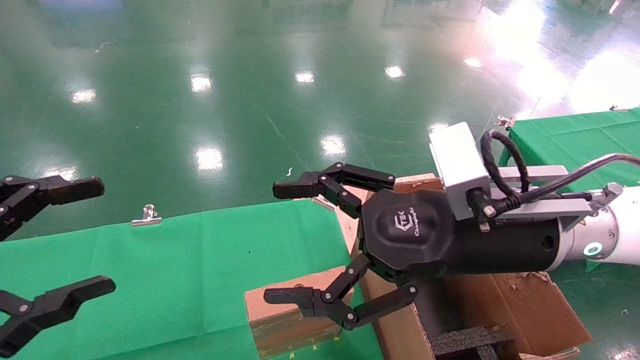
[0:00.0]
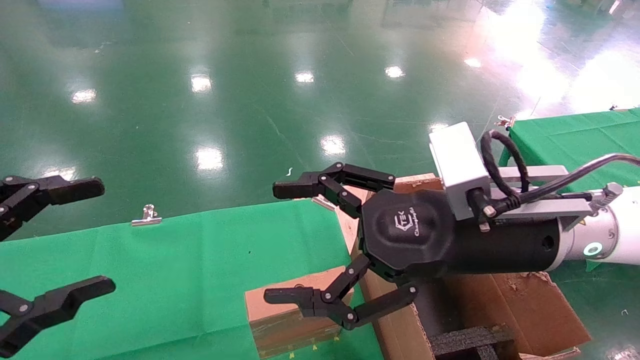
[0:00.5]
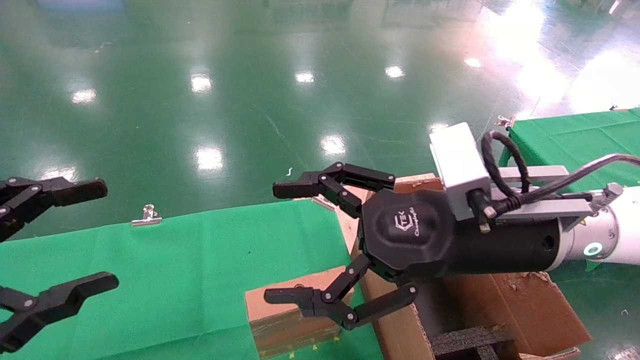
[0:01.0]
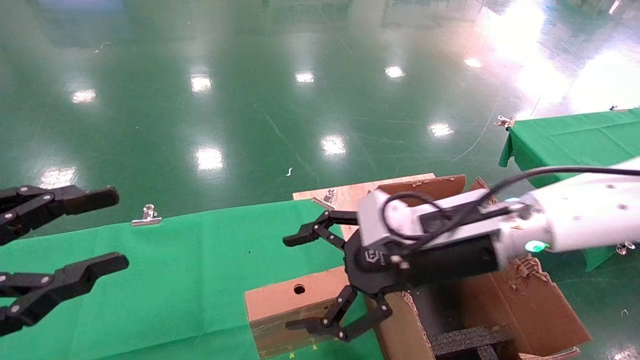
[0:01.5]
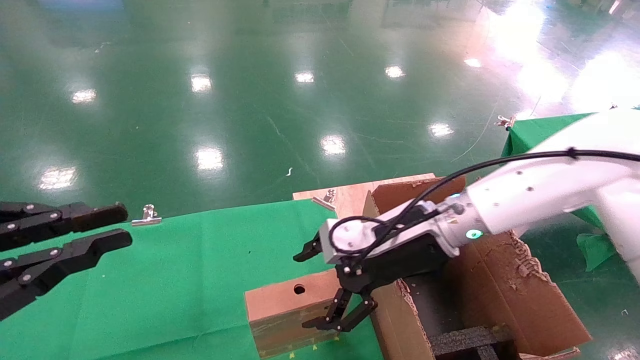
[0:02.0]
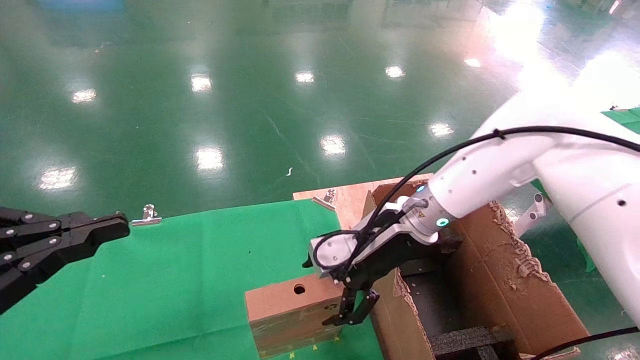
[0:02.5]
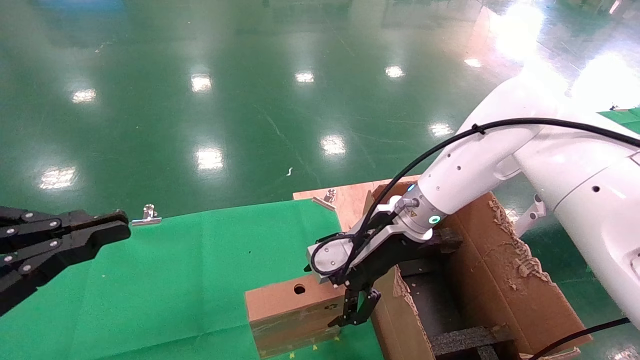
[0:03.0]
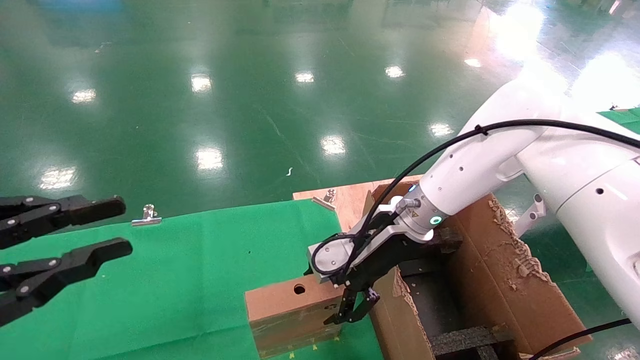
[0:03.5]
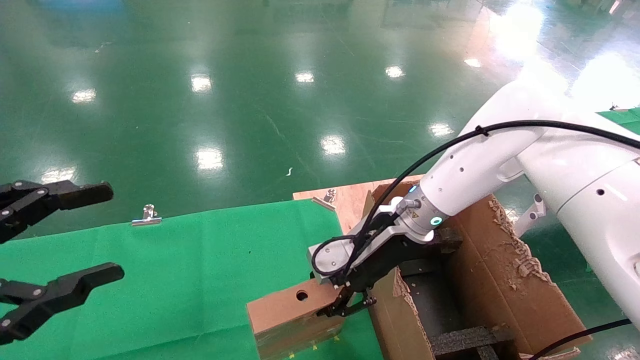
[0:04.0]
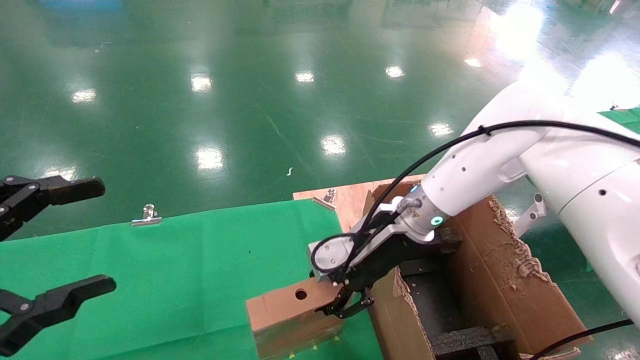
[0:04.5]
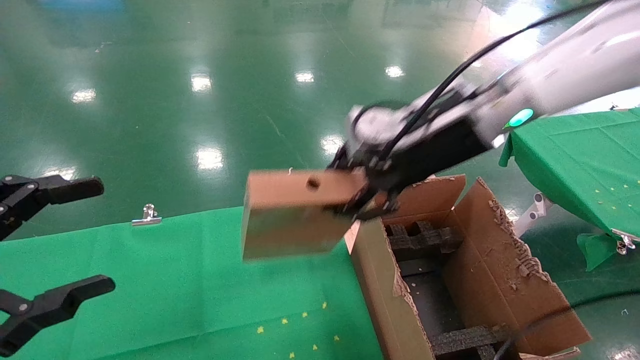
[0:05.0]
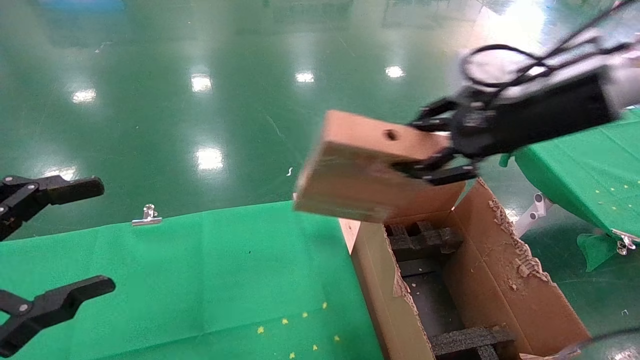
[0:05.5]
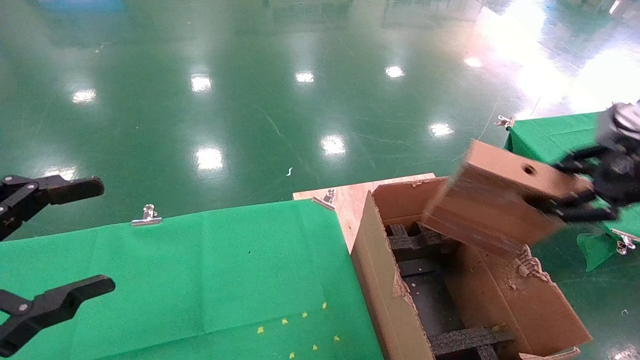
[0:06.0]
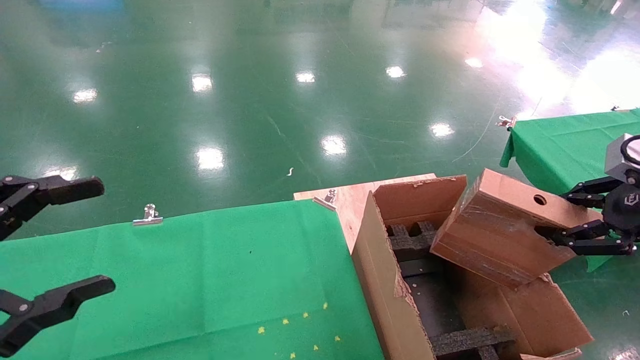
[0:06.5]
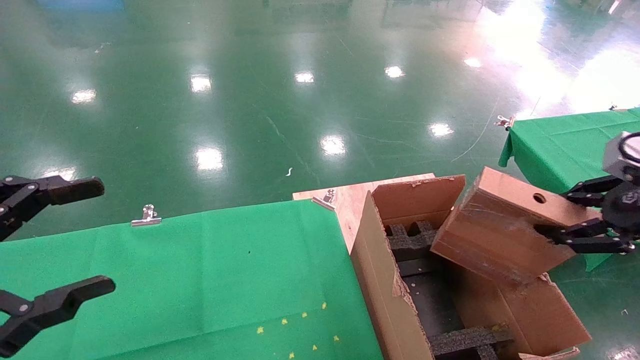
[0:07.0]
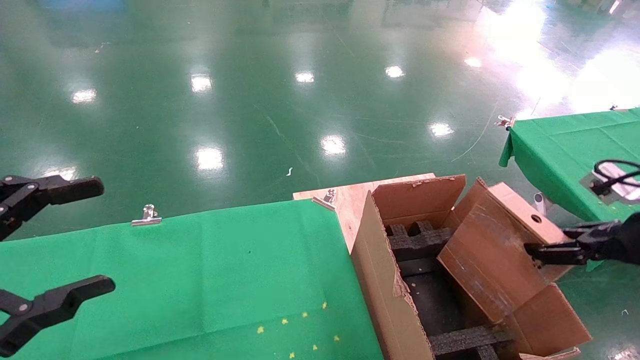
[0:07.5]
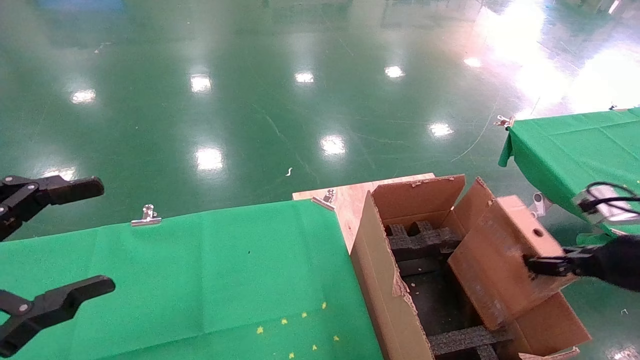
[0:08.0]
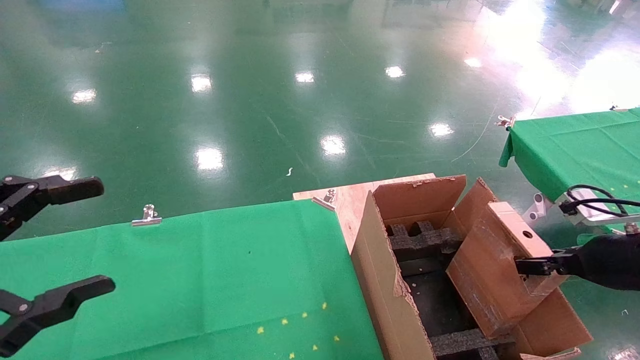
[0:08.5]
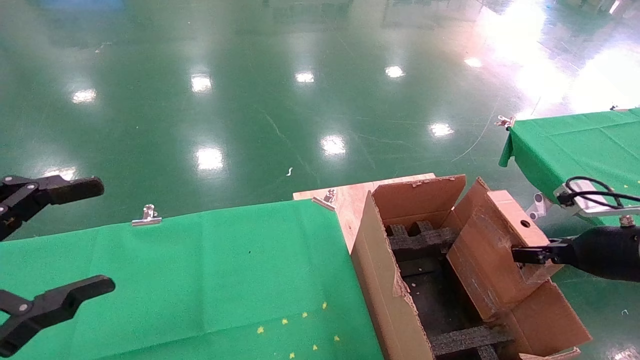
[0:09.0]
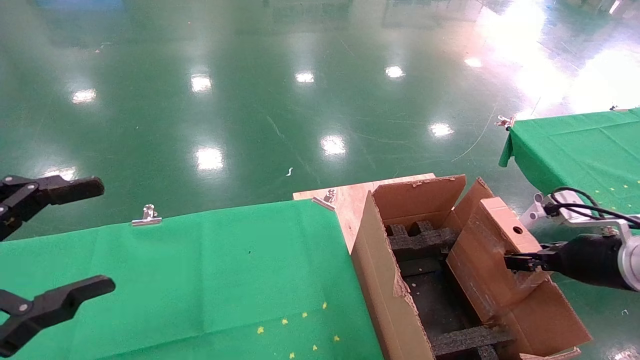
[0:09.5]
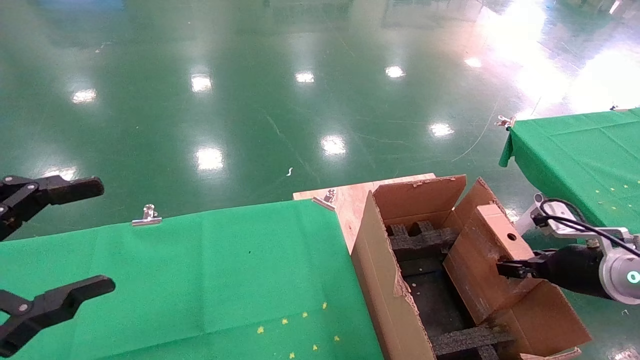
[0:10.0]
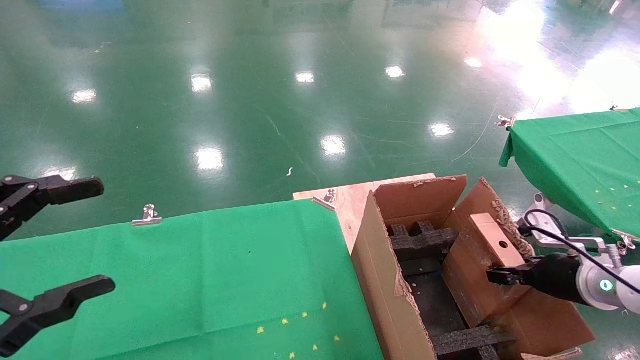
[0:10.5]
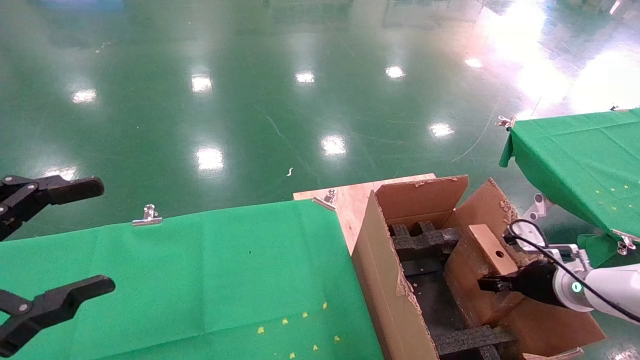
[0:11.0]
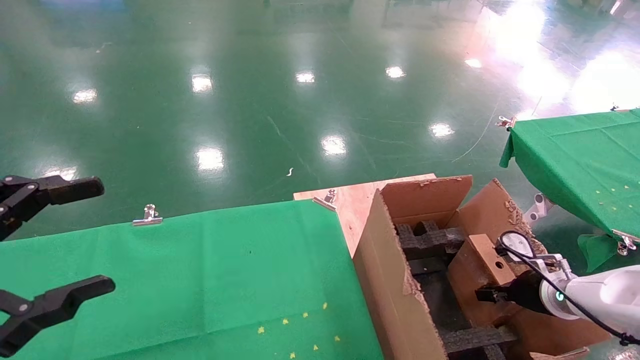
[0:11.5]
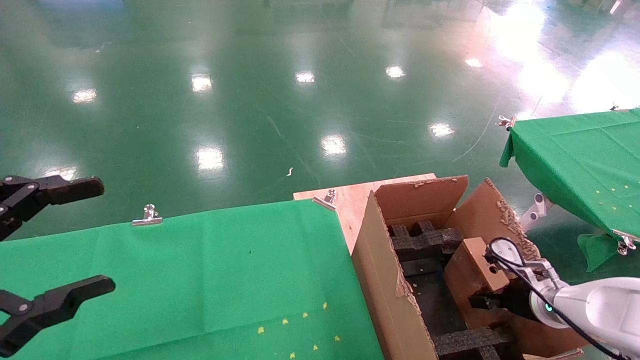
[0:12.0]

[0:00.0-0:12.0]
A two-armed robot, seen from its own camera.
Task of the whole recording: using a robotic arm to pick up a cardboard box and palace it the carton.
Step, 0:01.5 to 0:04.0: Pick up the mouse and the power cord paper box.
0:00.0 to 0:02.0: The left gripper closes. The right gripper travels forward and downward by about 10 cm.
0:02.0 to 0:04.0: The right gripper closes up, while the left gripper opens its fingers.
0:04.0 to 0:06.0: The left gripper opens its fingers, while the right gripper moves to the right, backward and upward, roughly 35 cm.
0:06.0 to 0:08.0: The right gripper moves downward, approximately 15 cm.
0:08.0 to 0:10.0: The right gripper goes roughly 10 cm downward and forward.
0:10.0 to 0:12.0: The right gripper heads downward, covering approximately 10 cm.

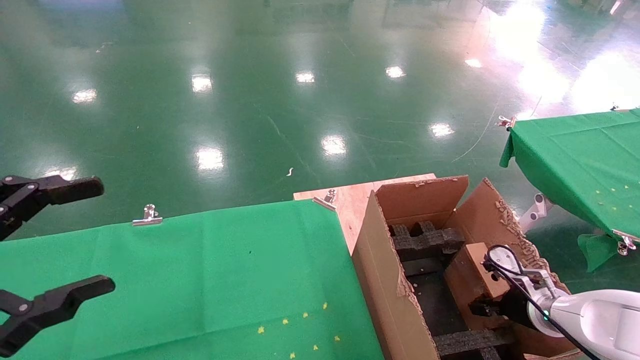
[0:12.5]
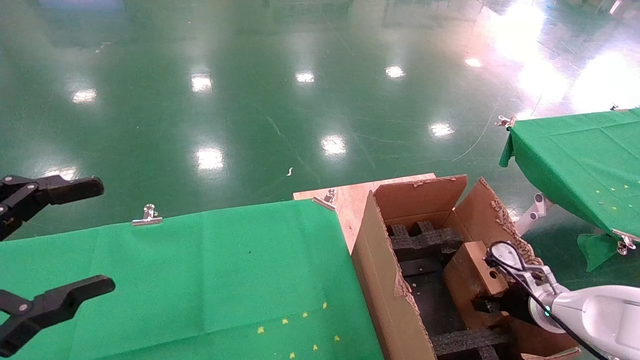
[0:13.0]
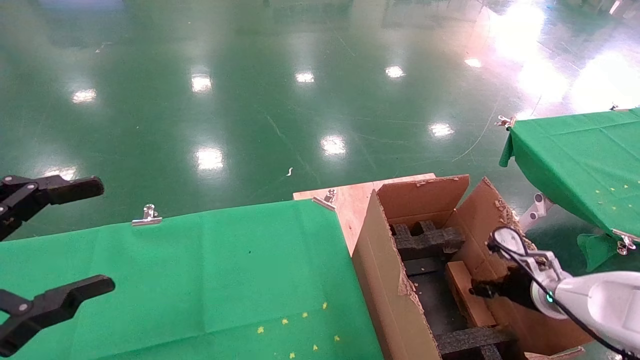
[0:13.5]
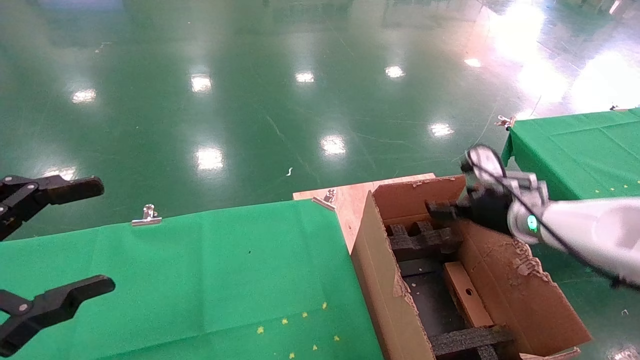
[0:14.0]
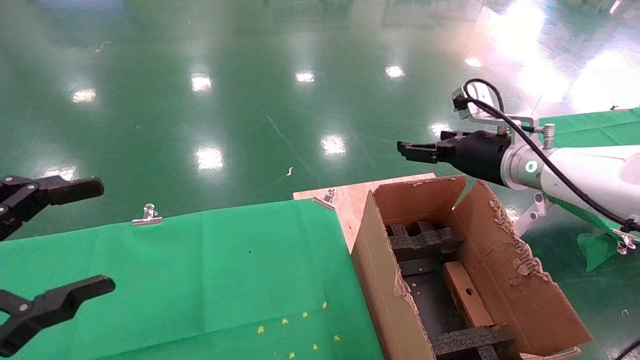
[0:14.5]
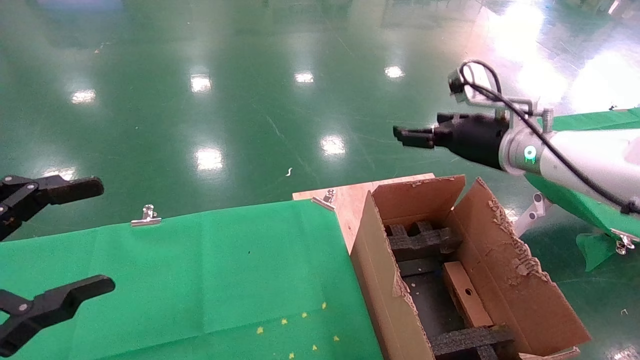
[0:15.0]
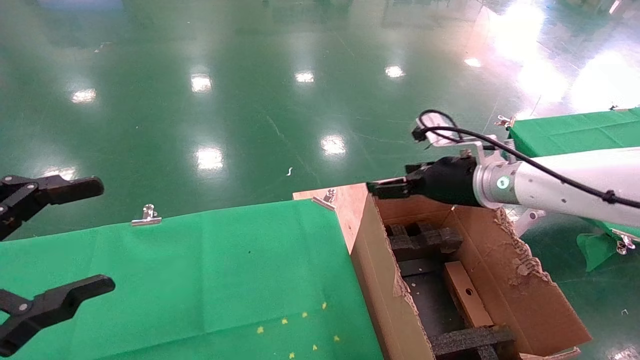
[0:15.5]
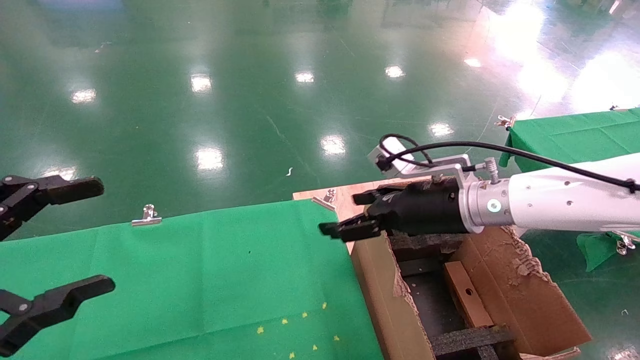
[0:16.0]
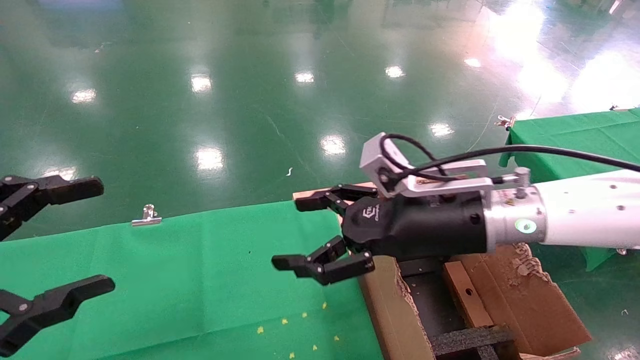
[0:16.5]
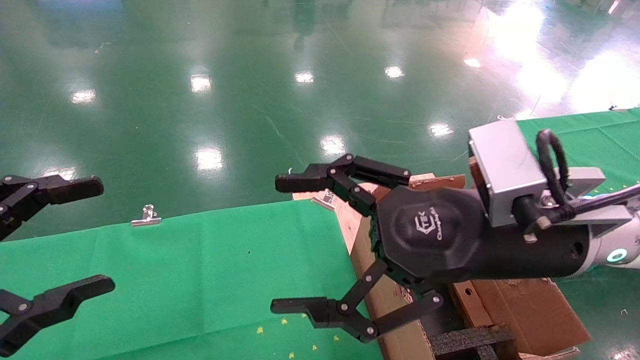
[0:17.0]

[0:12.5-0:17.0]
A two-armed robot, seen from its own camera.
Task of the whole recording: using a robotic arm to pick up a cardboard box and palace it the carton.
0:12.5 to 0:14.5: The right gripper shifts some 25 cm upward, and opens up.
0:14.5 to 0:17.0: The right gripper goes roughly 20 cm backward and to the left.

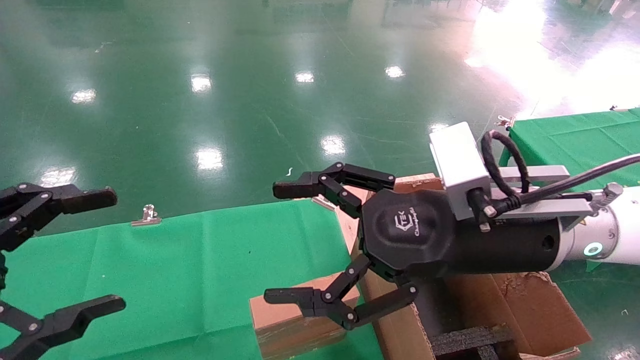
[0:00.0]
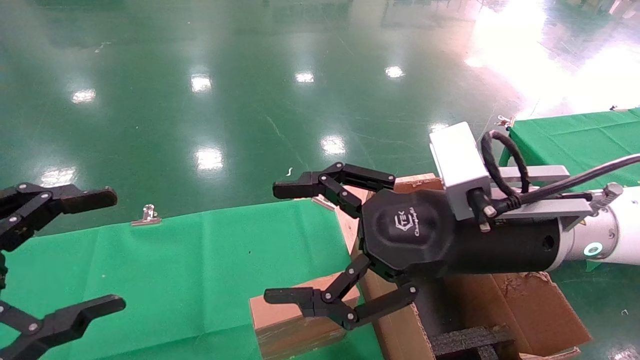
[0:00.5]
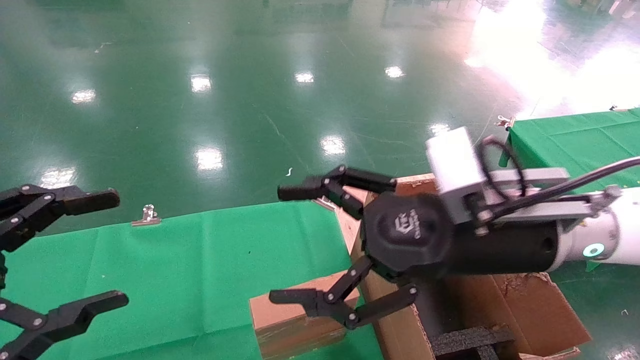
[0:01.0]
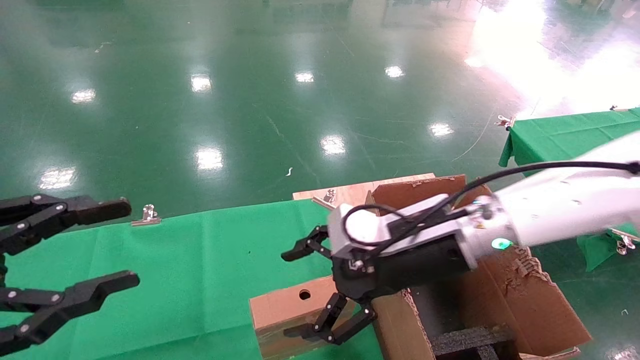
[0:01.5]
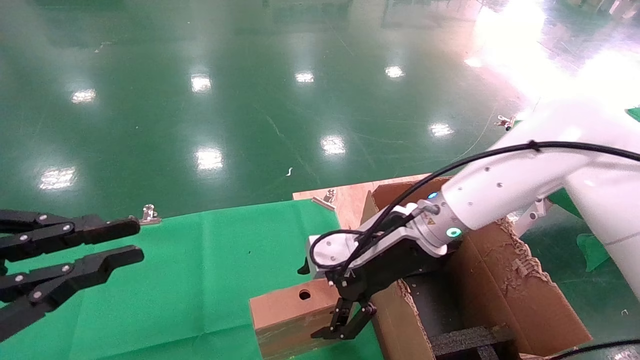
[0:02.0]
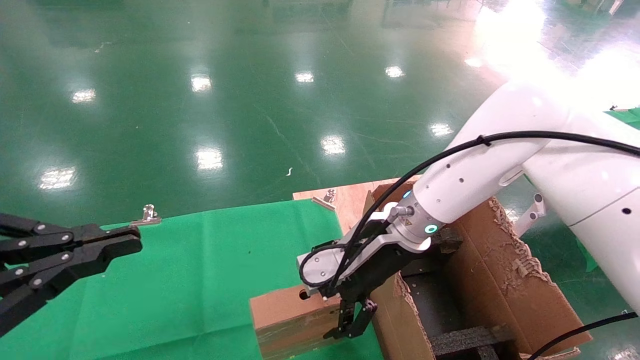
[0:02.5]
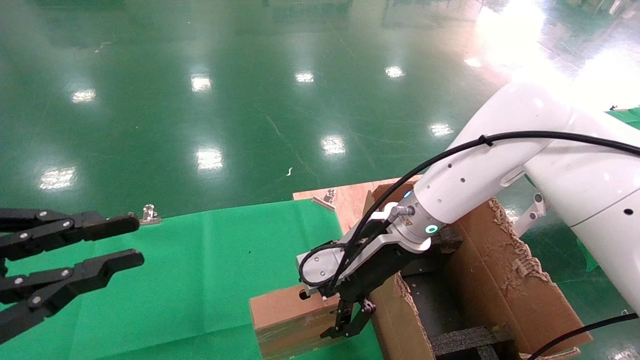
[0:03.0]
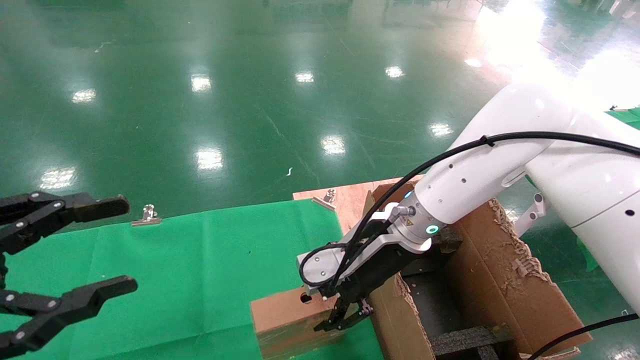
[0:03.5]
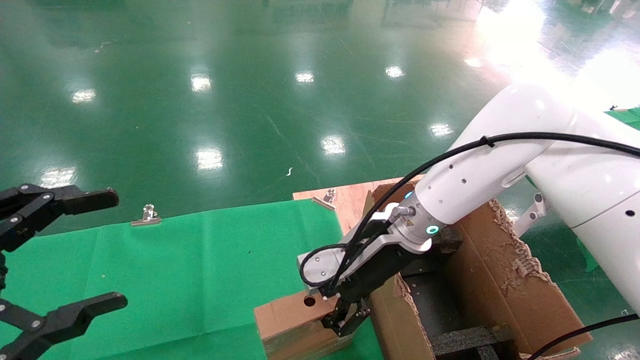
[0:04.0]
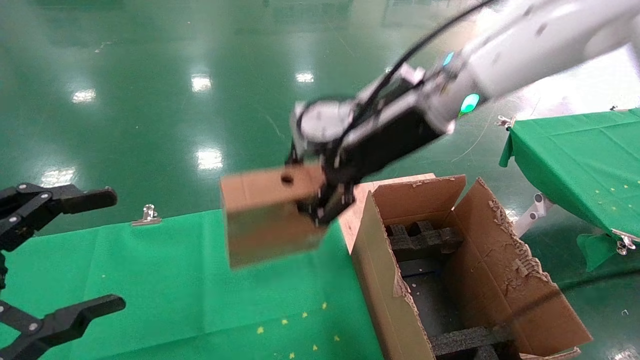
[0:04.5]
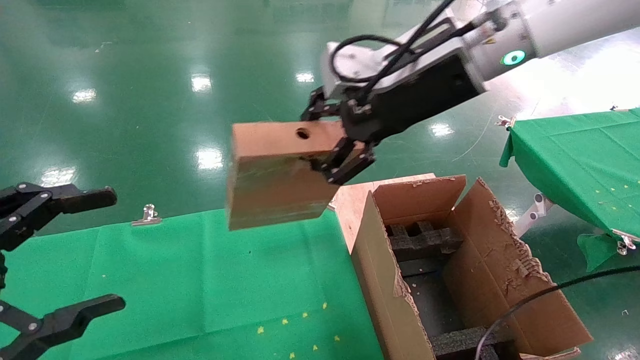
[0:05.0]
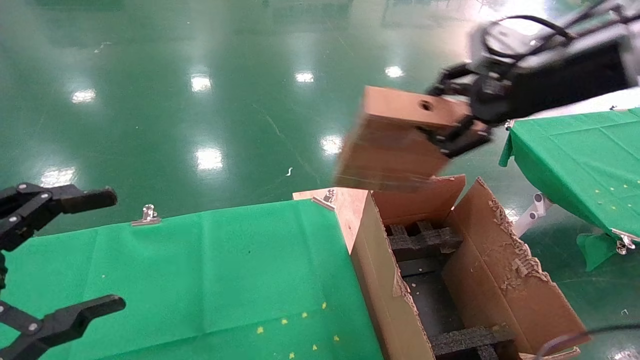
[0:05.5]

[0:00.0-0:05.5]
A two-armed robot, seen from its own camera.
Task of the whole recording: using a robotic arm to pick up a cardboard box and palace it the carton.
Step, 0:01.0 to 0:03.5: Pick up the mouse and the power cord paper box.
0:00.0 to 0:02.0: The left gripper closes up, while the right gripper is displaced forward and downward by about 10 cm.
0:02.0 to 0:03.5: The right gripper closes up.
0:03.5 to 0:05.5: The right gripper is displaced upward and to the right by approximately 30 cm, and closes. Meanwhile the left gripper opens up.
